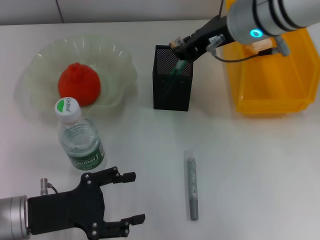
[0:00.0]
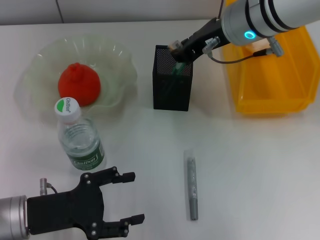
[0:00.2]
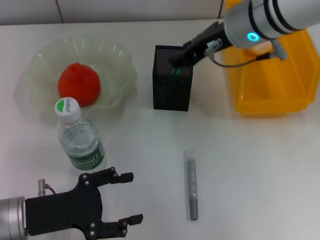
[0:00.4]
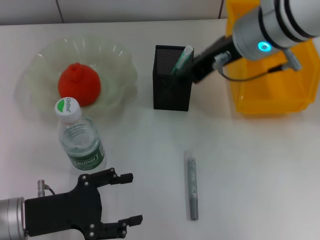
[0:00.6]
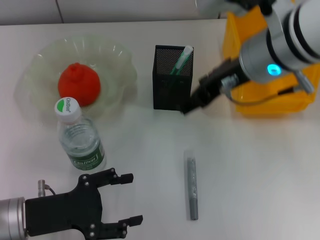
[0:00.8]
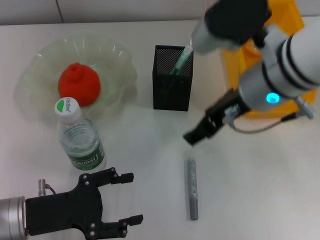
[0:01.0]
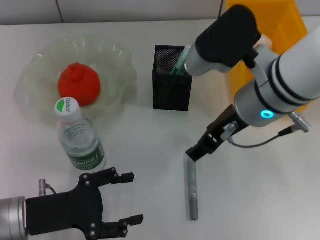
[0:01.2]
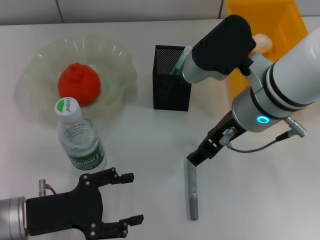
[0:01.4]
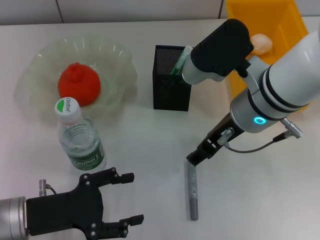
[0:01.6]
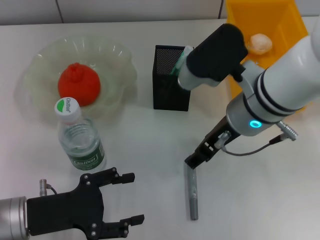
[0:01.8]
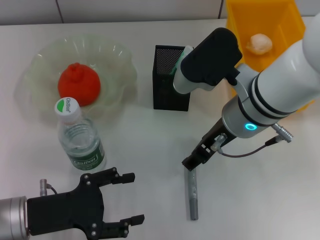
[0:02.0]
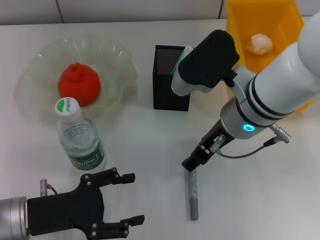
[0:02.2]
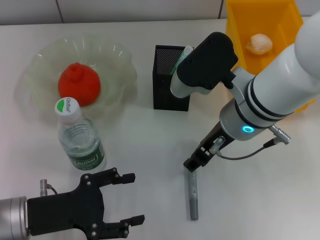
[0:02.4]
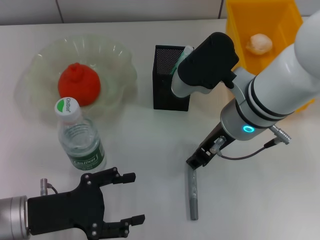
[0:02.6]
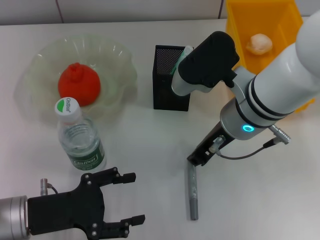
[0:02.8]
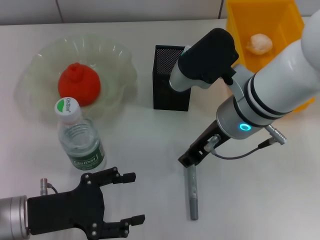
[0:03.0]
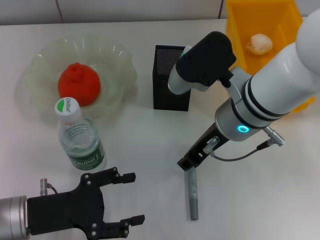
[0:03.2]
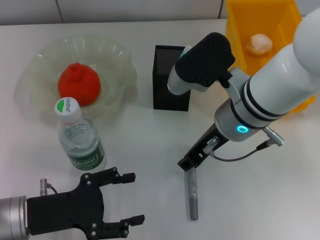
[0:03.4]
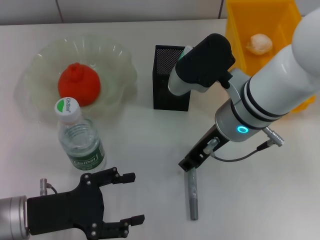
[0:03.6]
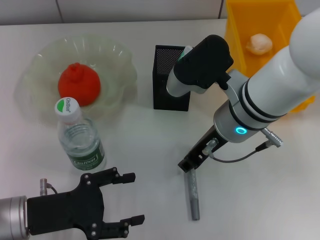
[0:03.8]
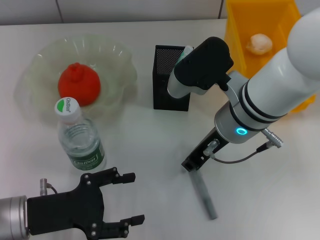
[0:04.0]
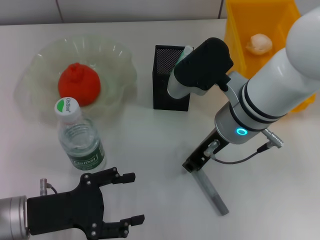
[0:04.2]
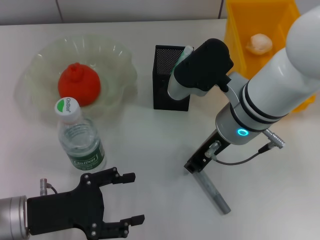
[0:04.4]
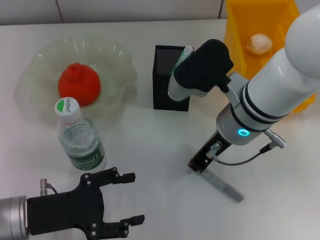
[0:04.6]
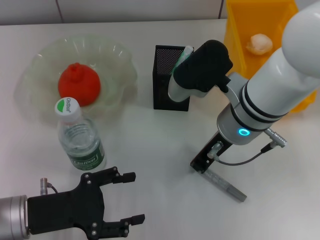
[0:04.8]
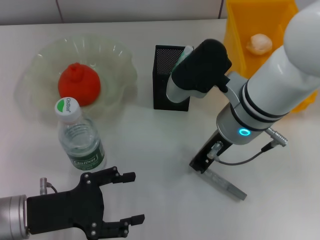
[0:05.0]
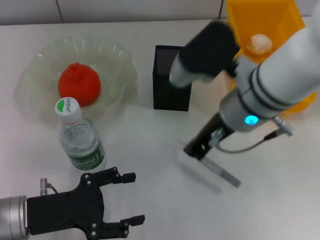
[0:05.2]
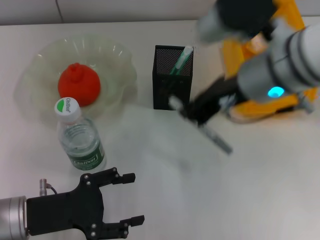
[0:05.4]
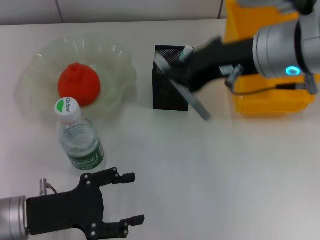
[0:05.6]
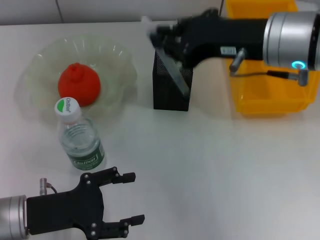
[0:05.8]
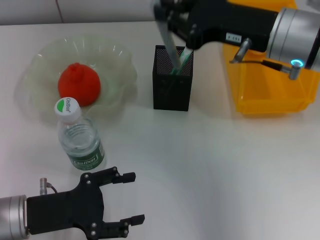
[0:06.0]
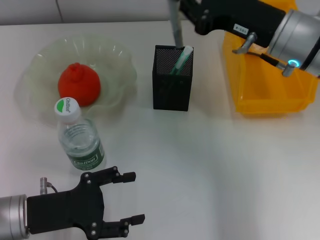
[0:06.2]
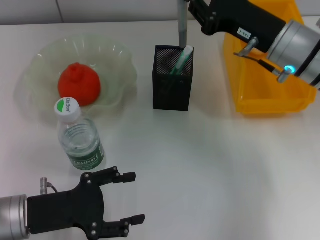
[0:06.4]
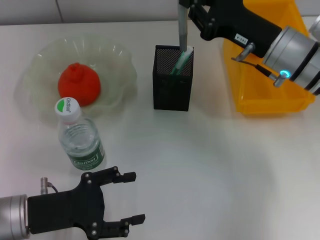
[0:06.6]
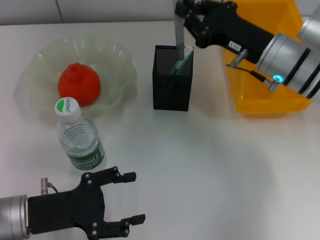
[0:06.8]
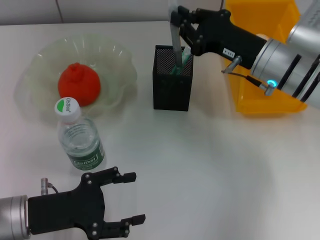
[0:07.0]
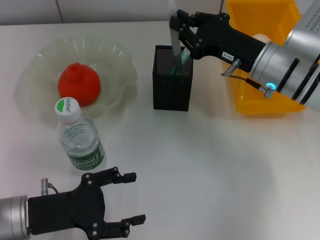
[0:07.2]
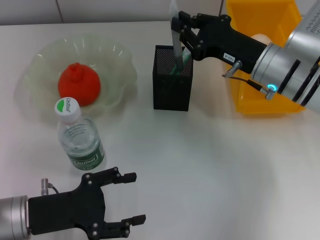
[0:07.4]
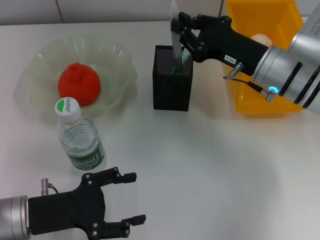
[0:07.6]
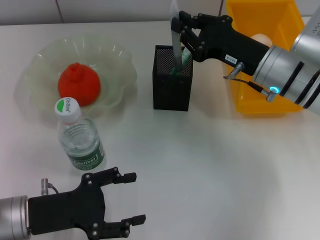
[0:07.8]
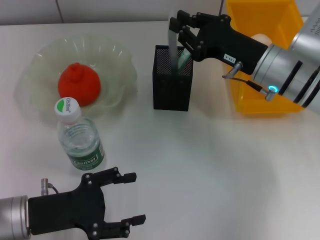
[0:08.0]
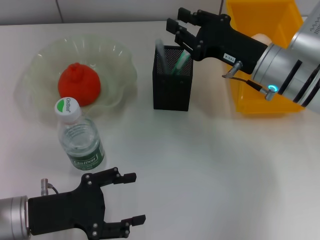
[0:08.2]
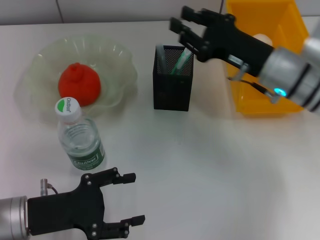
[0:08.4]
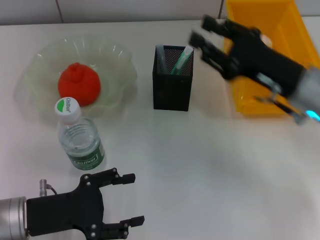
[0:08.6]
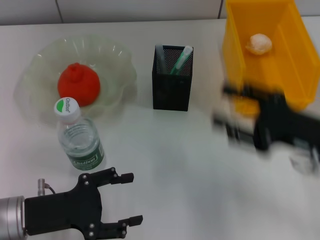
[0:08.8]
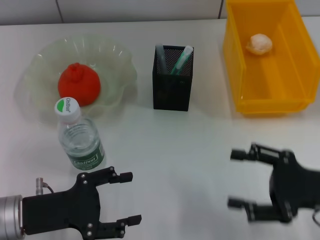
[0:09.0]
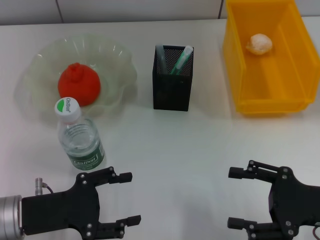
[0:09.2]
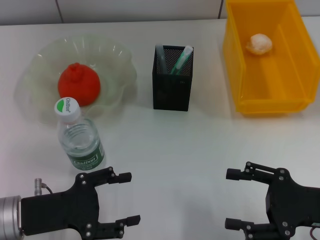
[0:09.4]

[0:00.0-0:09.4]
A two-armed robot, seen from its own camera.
Step, 0.6 to 4.8 s: Grab the gray glue with the right hand.
Step, 5.0 to 8.2 s: Place the gray glue into the pen holder with the right hand.
0.0 to 1.6 s: The right gripper goes about 10 cm backward and downward, and opens its fingers.
1.6 to 3.2 s: The right gripper closes.
3.2 to 4.8 s: The grippers make only small movements.
4.8 to 6.2 s: The right gripper shifts roughly 10 cm to the right.
6.2 to 7.8 s: The right gripper shifts some 5 cm downward.
7.8 to 9.4 s: The right gripper heads backward and to the right, covering some 20 cm, and opens its fingers.

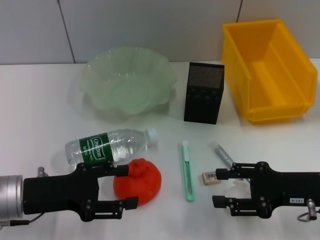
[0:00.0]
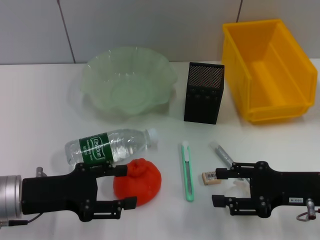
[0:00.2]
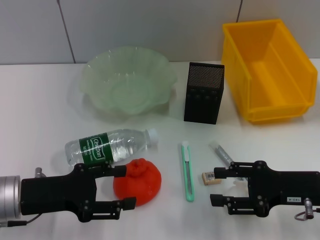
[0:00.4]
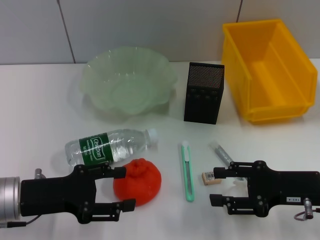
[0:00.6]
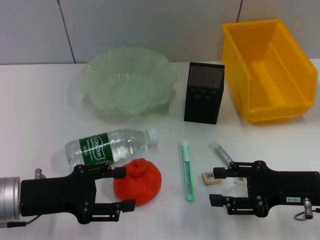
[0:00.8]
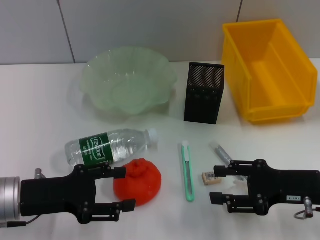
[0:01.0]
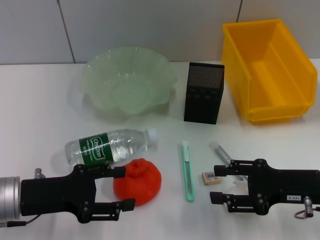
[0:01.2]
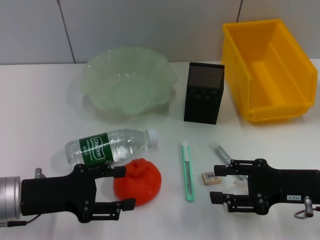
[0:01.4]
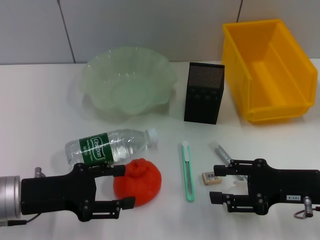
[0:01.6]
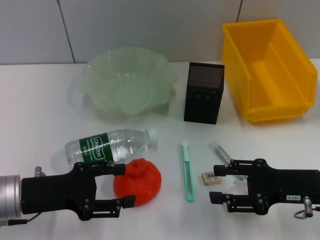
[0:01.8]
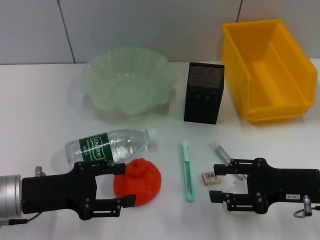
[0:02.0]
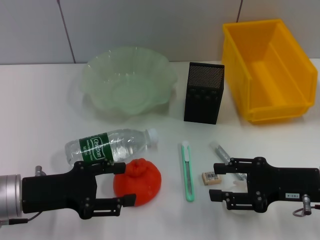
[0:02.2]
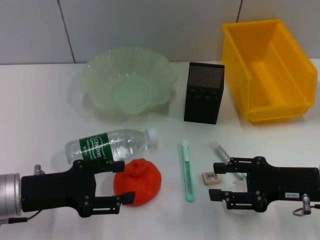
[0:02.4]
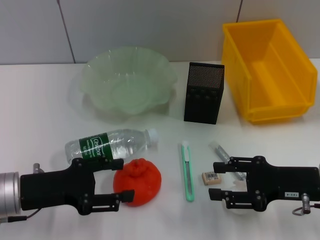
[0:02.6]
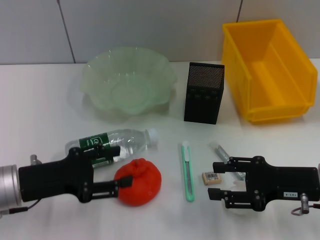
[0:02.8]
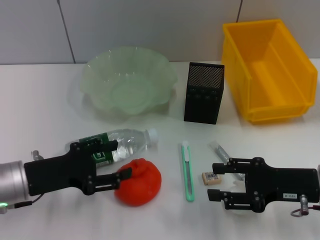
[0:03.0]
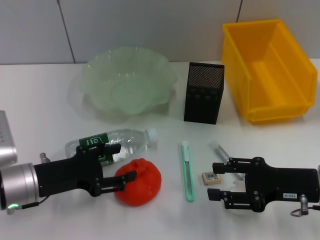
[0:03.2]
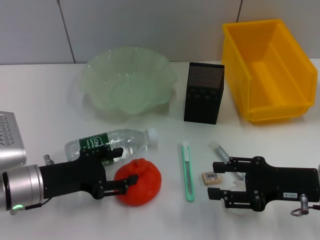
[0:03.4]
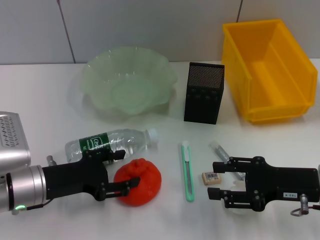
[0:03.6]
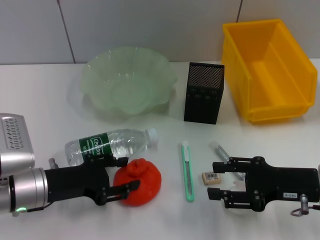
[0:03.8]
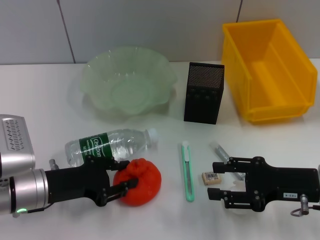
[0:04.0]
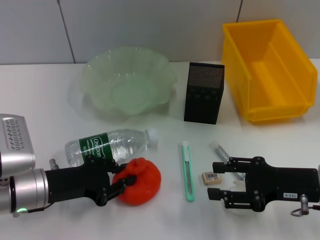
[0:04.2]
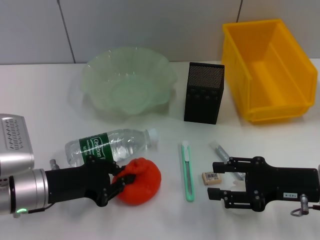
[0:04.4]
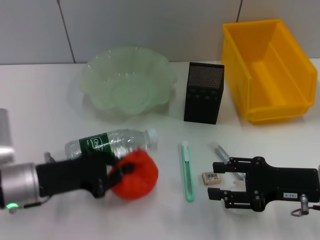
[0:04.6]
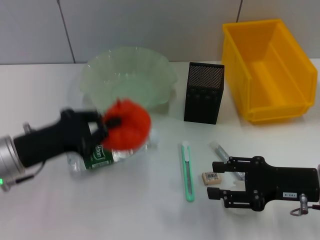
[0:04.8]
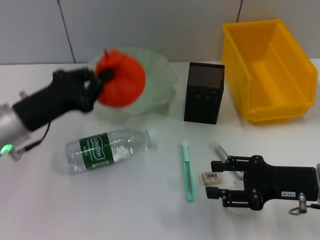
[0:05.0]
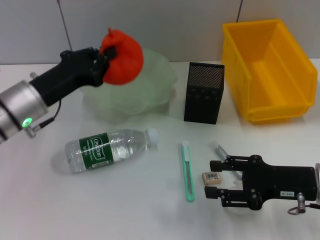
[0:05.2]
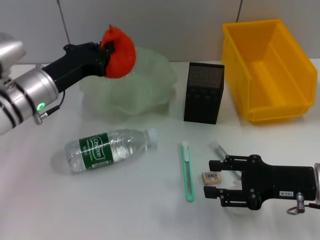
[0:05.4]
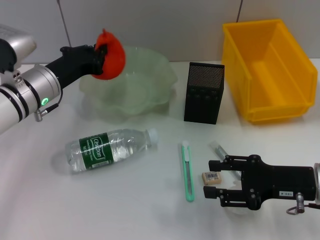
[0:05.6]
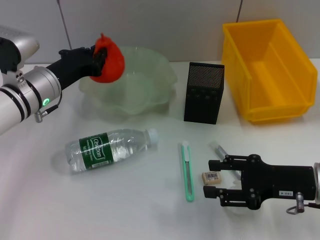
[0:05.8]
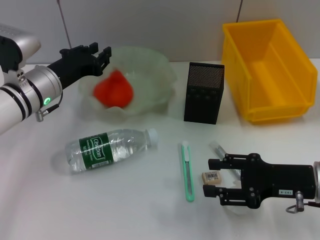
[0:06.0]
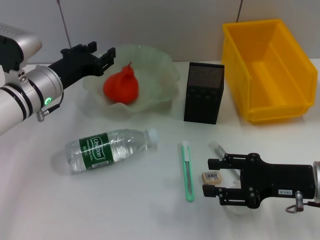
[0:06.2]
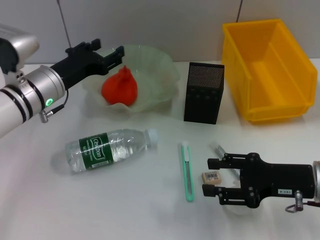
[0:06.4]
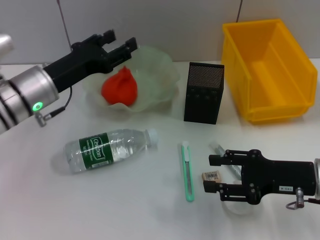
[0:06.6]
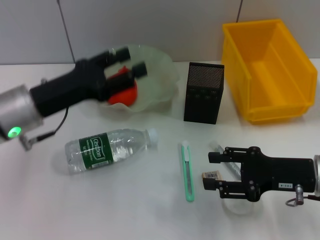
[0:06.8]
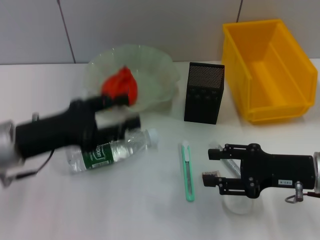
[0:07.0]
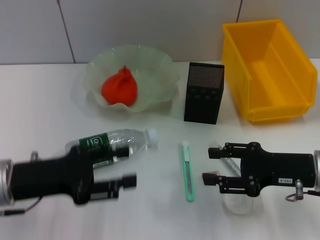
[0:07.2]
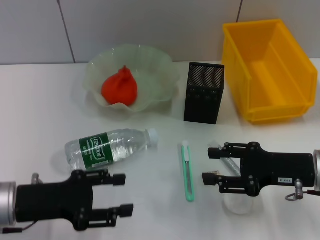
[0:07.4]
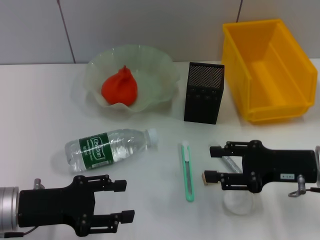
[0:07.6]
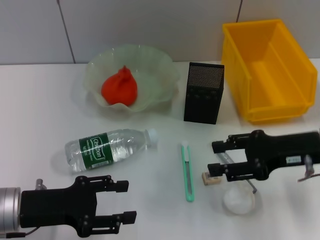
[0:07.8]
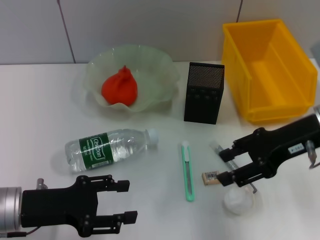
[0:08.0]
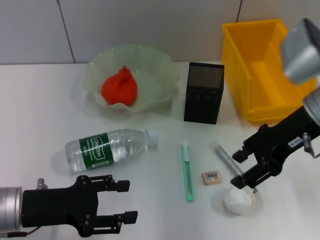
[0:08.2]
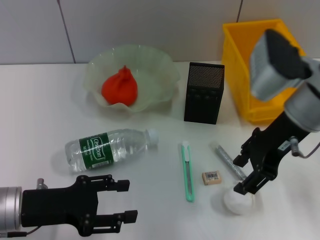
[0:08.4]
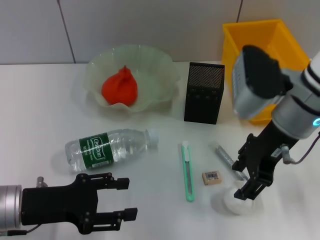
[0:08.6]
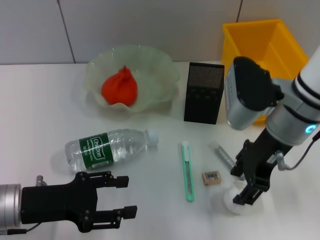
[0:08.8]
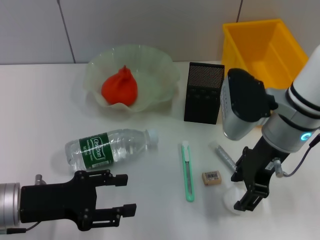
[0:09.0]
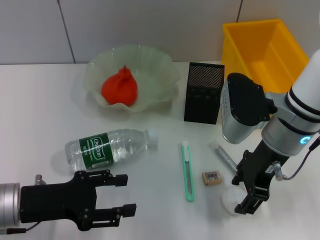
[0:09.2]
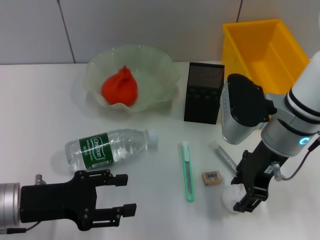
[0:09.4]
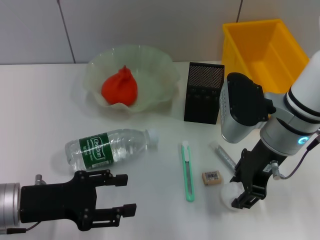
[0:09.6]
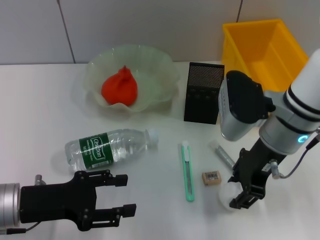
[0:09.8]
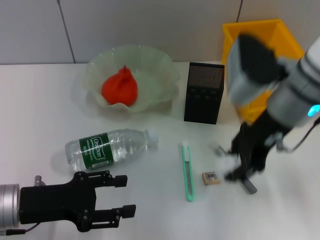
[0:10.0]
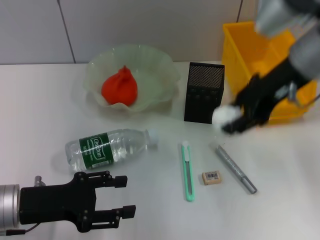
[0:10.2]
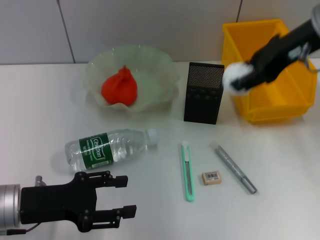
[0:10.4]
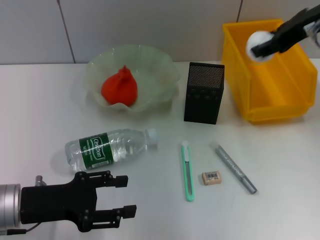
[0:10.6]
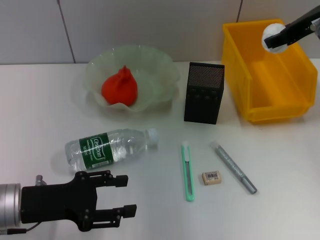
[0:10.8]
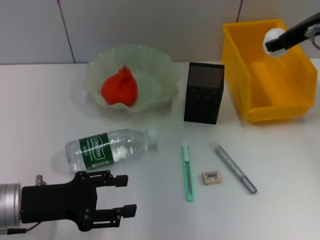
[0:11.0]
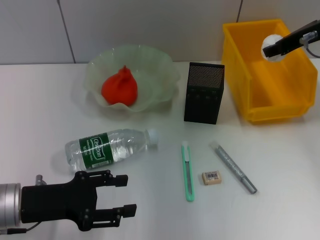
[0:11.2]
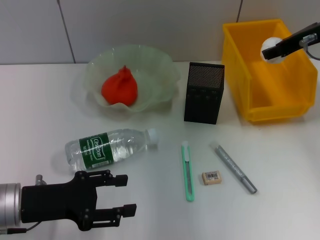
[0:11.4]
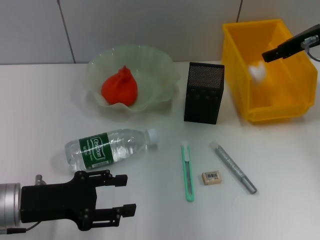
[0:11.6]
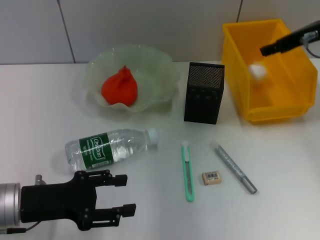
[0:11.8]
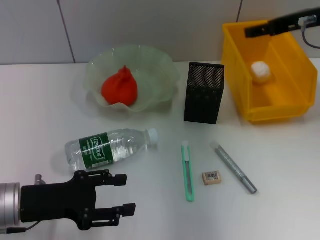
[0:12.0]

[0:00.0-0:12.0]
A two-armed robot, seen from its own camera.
Step, 0.0 to 4.2 s: Grab the orange with the left hand.
Step, 4.6 to 6.2 s: Place the orange into the fruit bowl with the left hand.
Step, 6.4 to 9.4 s: Grab the paper ball with the right hand.
Step, 9.6 to 11.6 s: Place the paper ball into the trash can with the right hand.
0.0 to 1.6 s: Neither gripper changes place.
1.6 to 3.0 s: The grippers make only small movements.
3.0 to 4.4 s: The left gripper closes.
4.4 to 6.0 s: The left gripper goes some 15 cm forward and upward.
6.0 to 7.6 s: The left gripper heads backward, covering about 15 cm, and opens.
7.6 to 9.0 s: The right gripper shifts approximately 15 cm to the left, upward and forward.
9.0 to 10.4 s: The right gripper heads upward and to the right, covering approximately 15 cm.
10.4 to 12.0 s: The right gripper ends up about 10 cm from where it was, and opens its fingers.

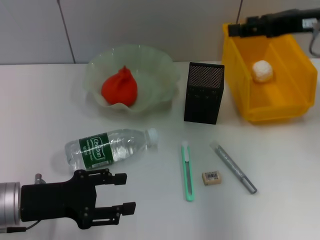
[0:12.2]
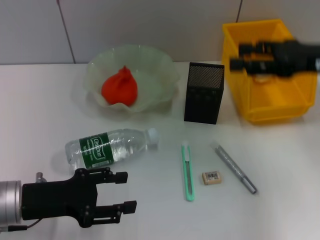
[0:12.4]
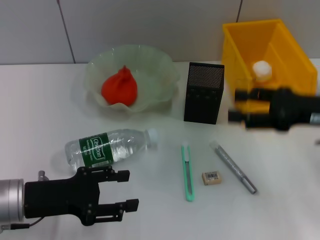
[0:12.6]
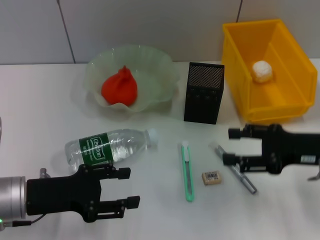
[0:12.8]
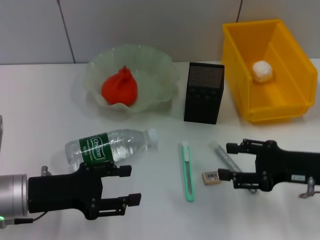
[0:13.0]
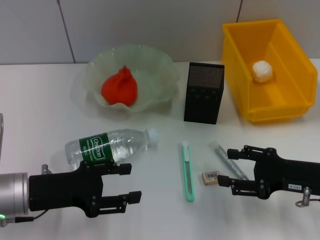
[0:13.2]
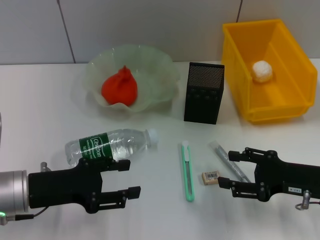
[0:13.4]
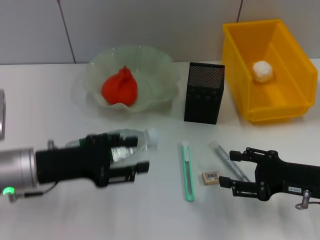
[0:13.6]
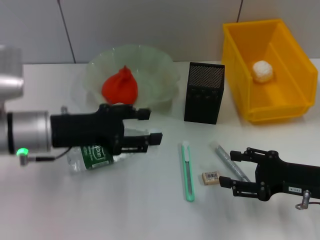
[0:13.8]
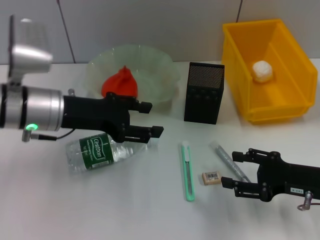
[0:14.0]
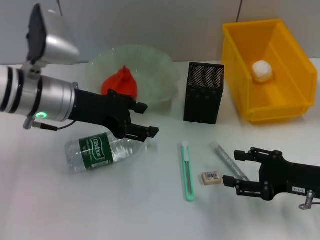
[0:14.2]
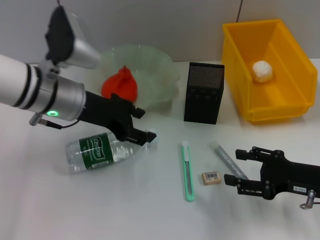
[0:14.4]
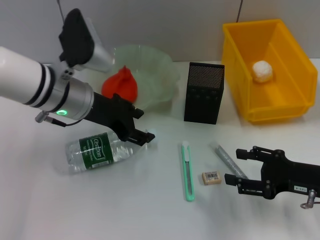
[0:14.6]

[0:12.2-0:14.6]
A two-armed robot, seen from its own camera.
12.2 to 13.4 s: The right gripper travels downward and backward by some 20 cm.
13.4 to 14.6 s: The left gripper travels forward, to the right and upward by about 15 cm.
